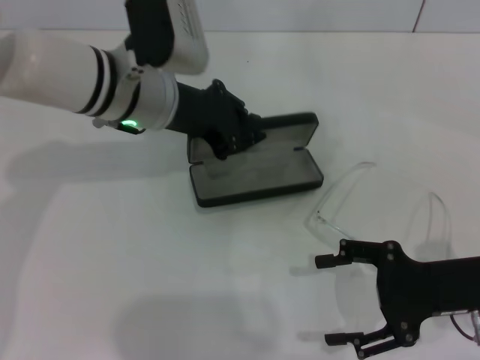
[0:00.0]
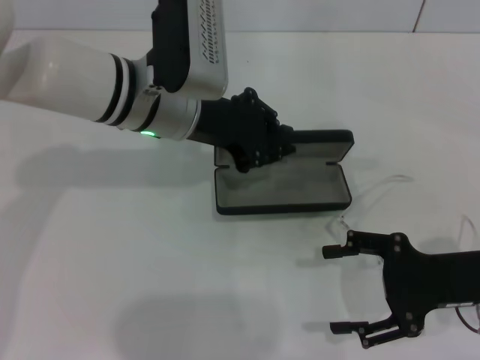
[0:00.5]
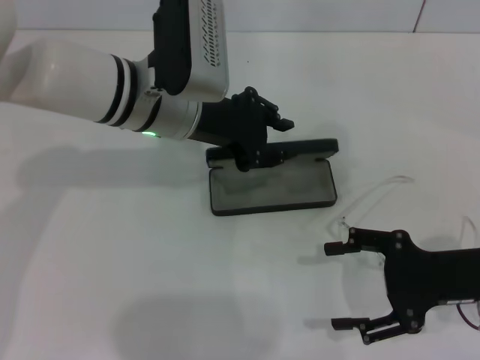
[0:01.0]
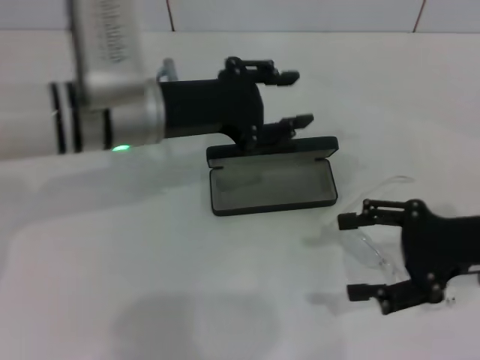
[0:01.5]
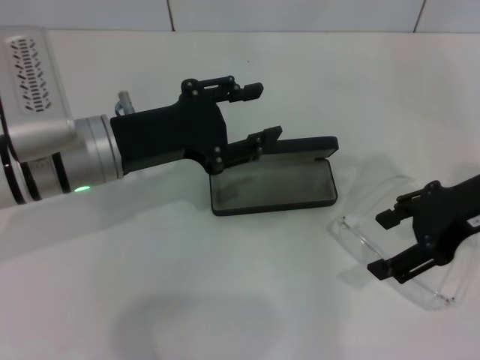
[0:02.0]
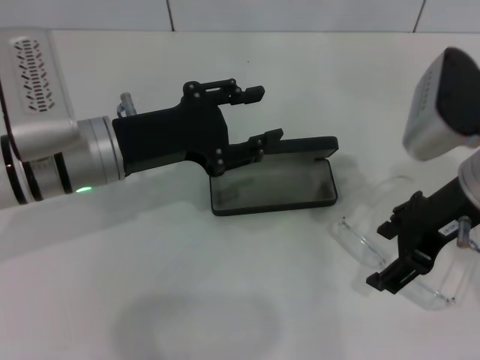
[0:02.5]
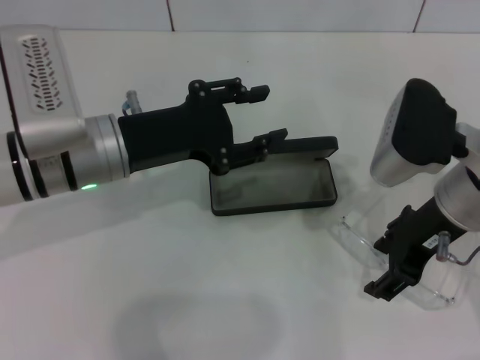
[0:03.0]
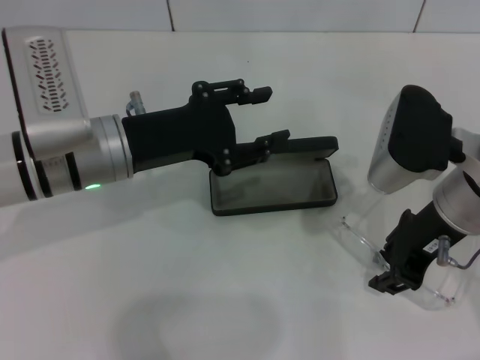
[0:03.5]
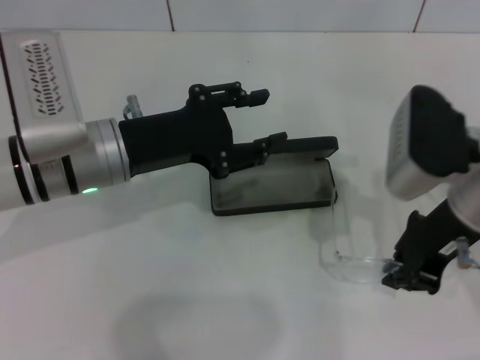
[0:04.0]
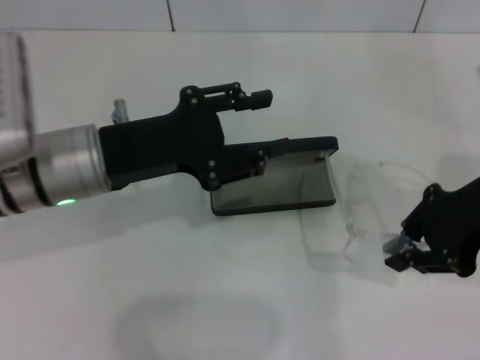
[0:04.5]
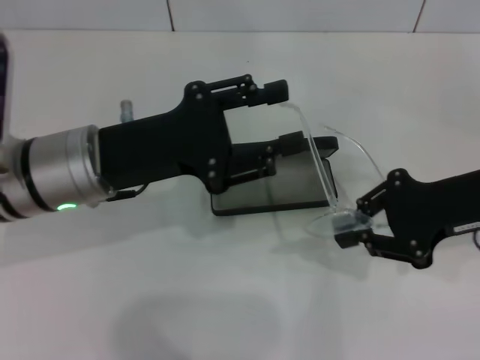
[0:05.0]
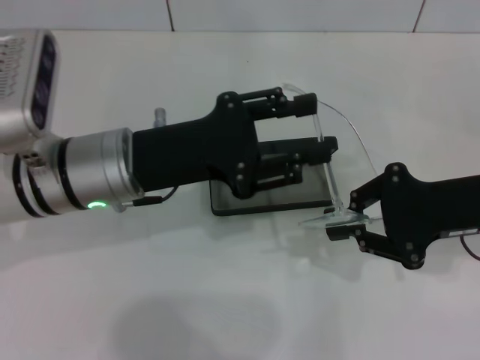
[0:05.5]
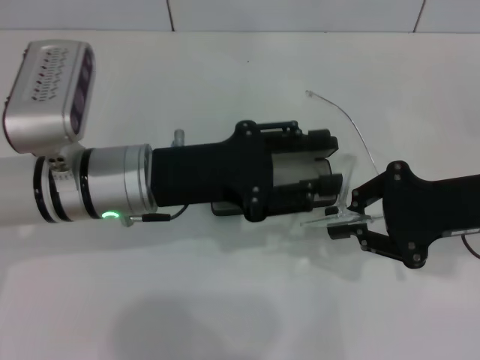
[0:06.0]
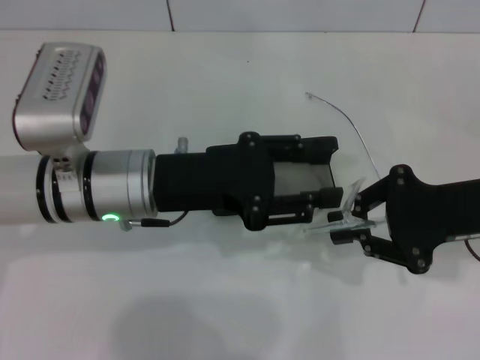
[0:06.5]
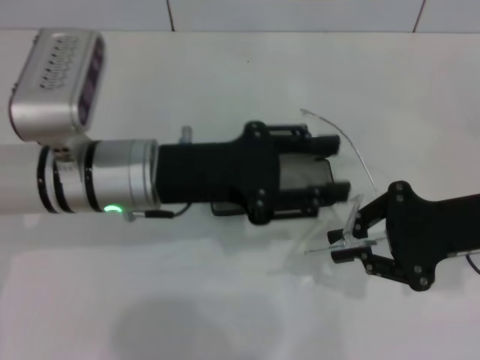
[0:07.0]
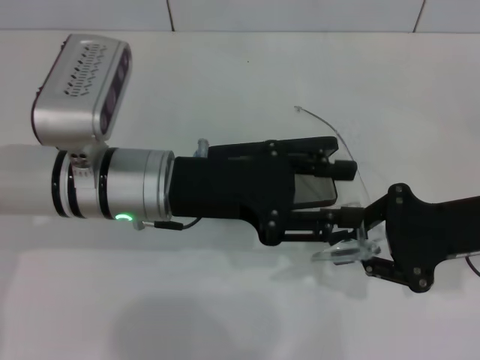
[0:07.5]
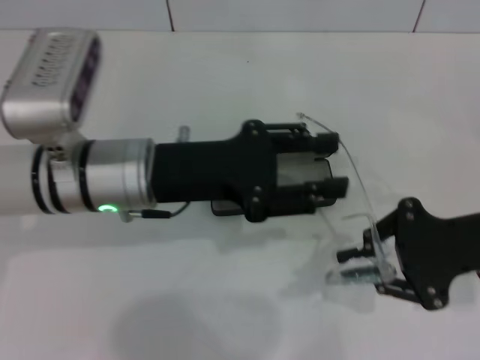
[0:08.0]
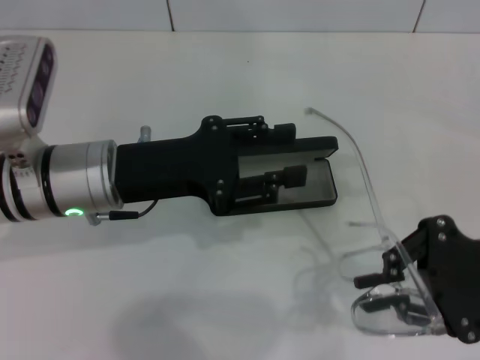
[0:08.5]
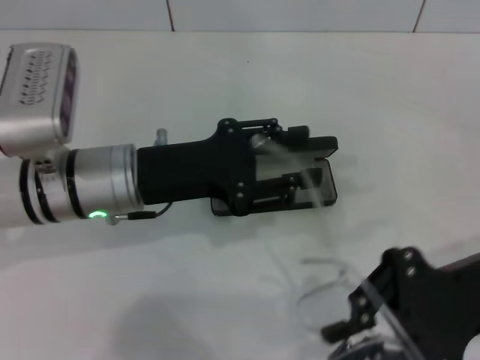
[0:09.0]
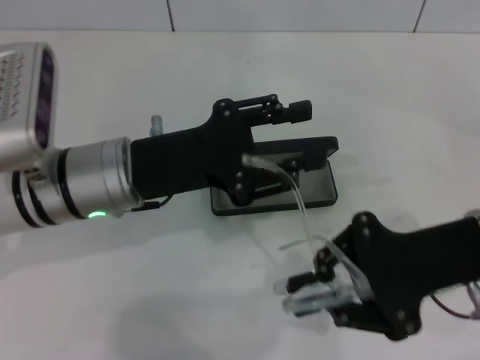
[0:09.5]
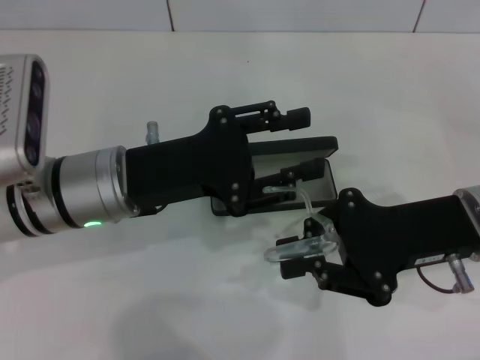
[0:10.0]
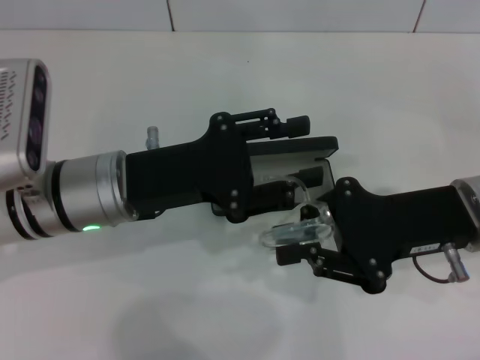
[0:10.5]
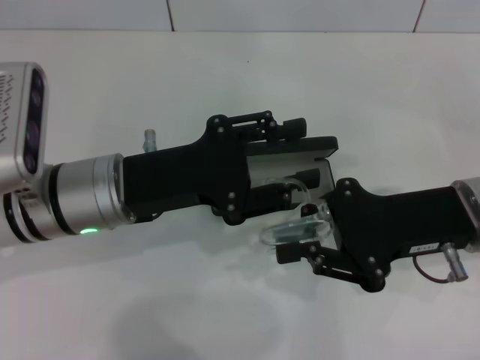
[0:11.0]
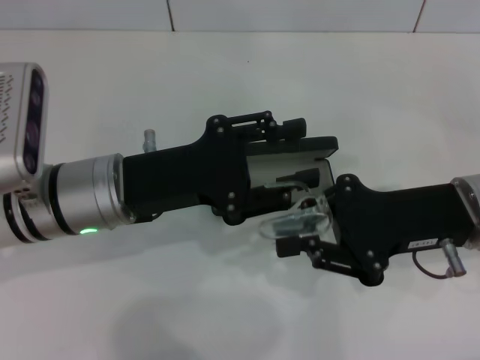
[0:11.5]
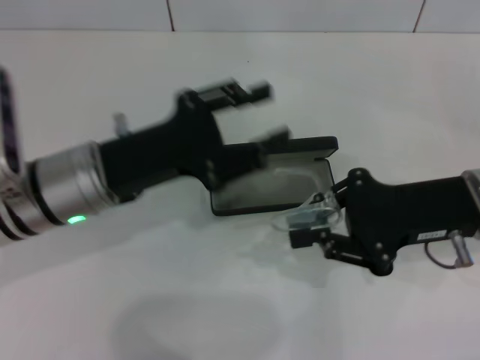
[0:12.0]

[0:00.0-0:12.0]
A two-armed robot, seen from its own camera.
Step, 0:01.5 to 0:03.5: Grab the eyeglass frame with your right hand.
Step, 0:04.0 to 0:11.5: Lift the glasses with your right hand.
0:00.0 to 0:02.0: The right gripper goes some 10 cm upward and forward. Meanwhile the left gripper is displaced backward and to the left by approximately 10 cm, and opens its fingers.
0:02.0 to 0:04.0: The right gripper shifts about 5 cm to the left, and closes up.
0:04.0 to 0:06.0: The right gripper is displaced to the right by roughly 5 cm.
0:06.0 to 0:08.0: There are only small adjustments of the grippers.
0:08.0 to 0:10.0: The right gripper shifts roughly 5 cm to the left.

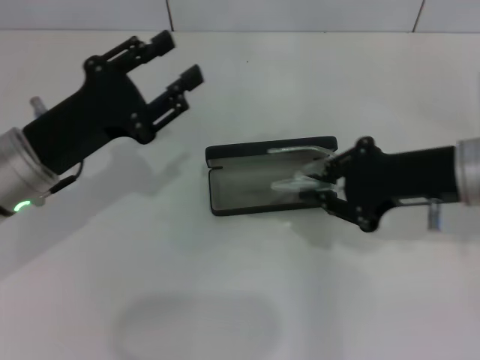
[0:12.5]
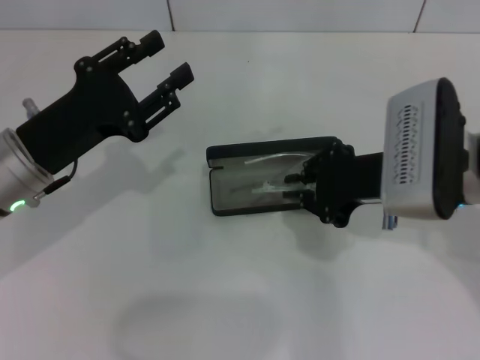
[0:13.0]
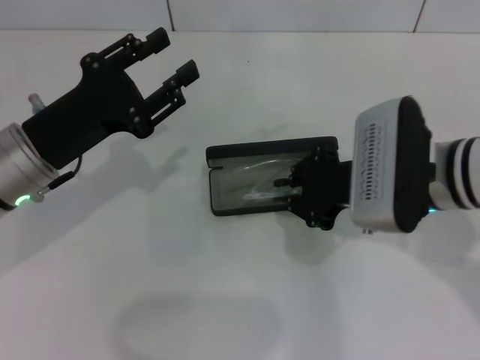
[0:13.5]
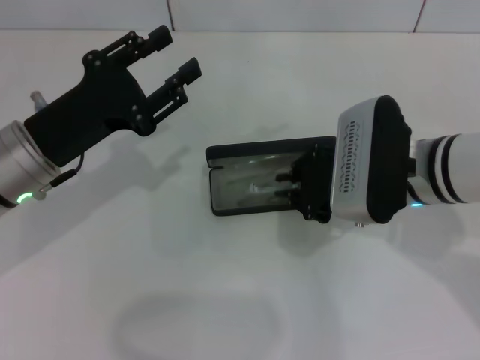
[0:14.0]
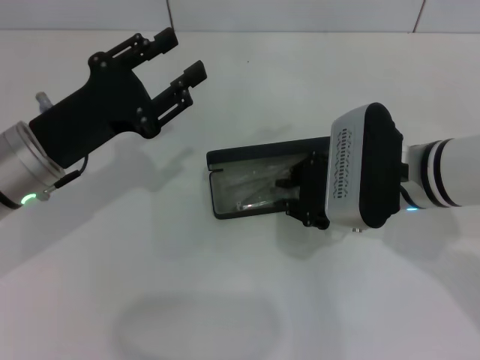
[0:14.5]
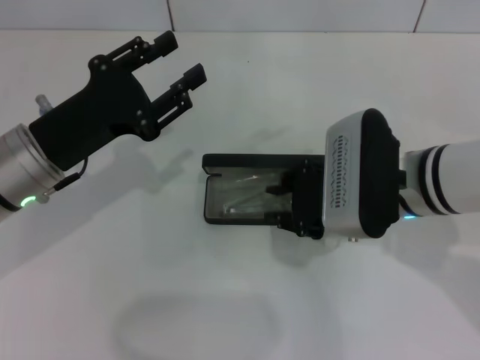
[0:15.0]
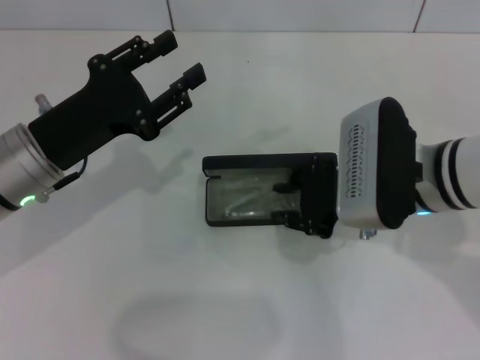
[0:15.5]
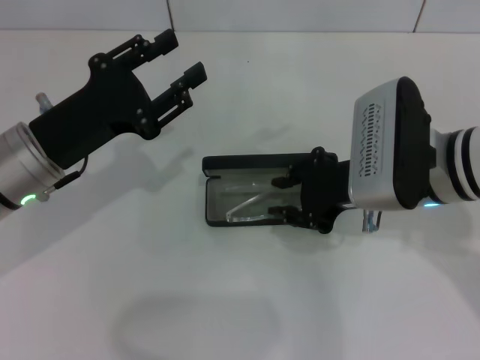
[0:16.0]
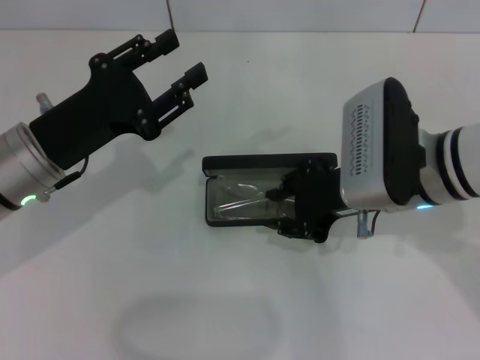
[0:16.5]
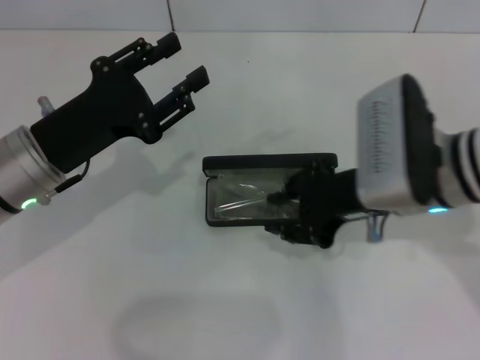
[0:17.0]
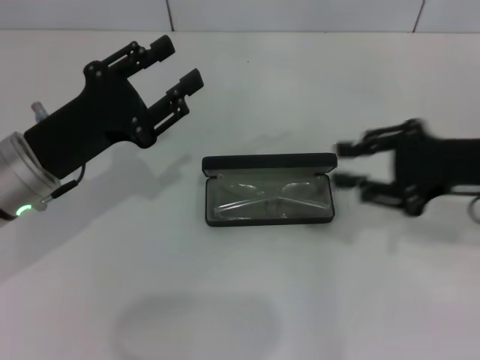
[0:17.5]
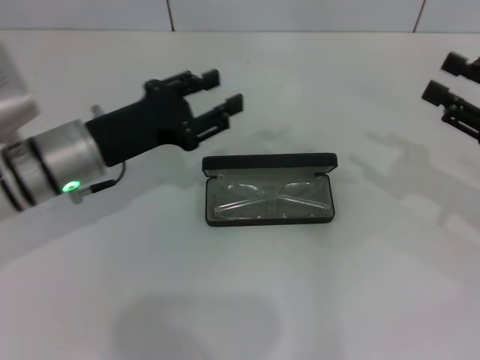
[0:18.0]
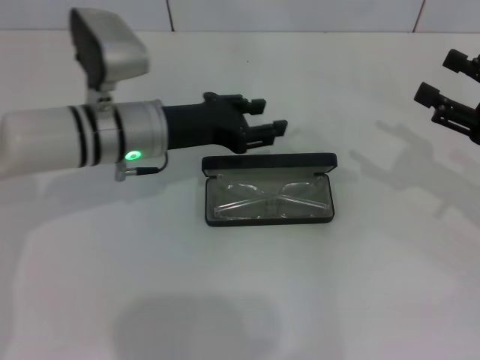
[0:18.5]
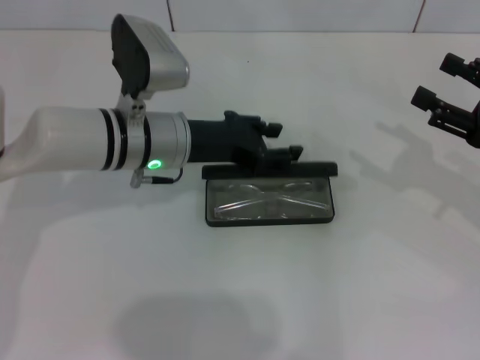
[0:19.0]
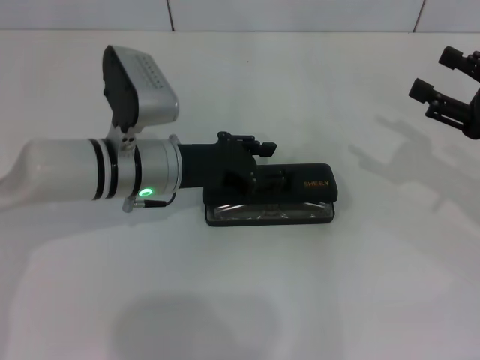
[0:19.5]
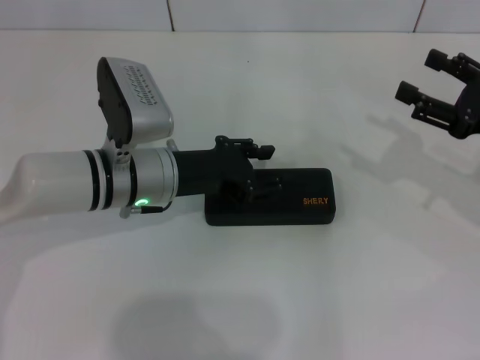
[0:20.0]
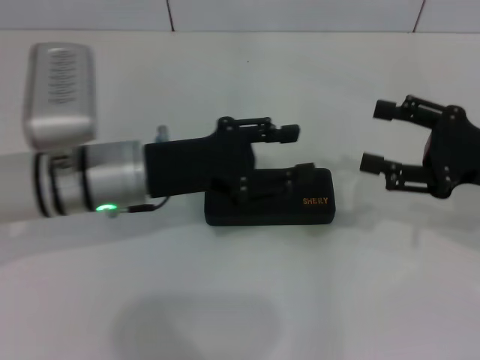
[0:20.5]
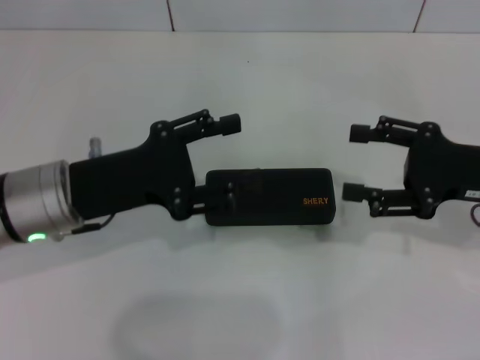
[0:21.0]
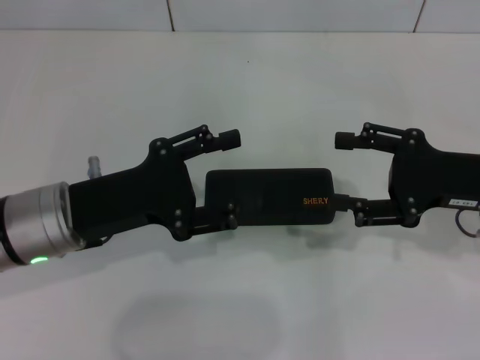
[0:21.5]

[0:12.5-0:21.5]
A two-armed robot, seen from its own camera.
Step, 0:12.5 to 0:16.5: Put the glasses into the case with your right hand.
Step, 0:17.0 to 0:19.5: Close the glasses case with your left hand.
0:12.5 to 0:14.5: The right gripper moves to the left, approximately 5 cm.
0:14.5 to 0:17.0: The grippers stay close to where they were, moving slightly.
0:17.0 to 0:19.5: The left gripper is displaced to the right and forward by roughly 10 cm. The right gripper shifts roughly 20 cm to the right, and opens up.
0:19.5 to 0:21.5: The right gripper moves to the left, roughly 5 cm; the left gripper heads backward and to the left, covering about 10 cm.

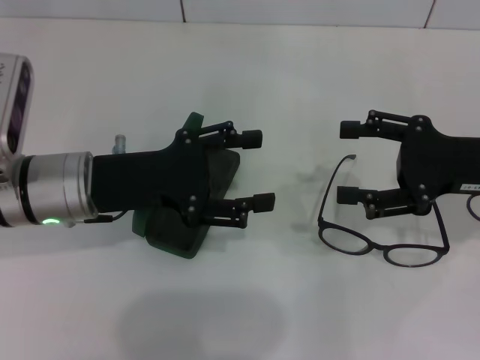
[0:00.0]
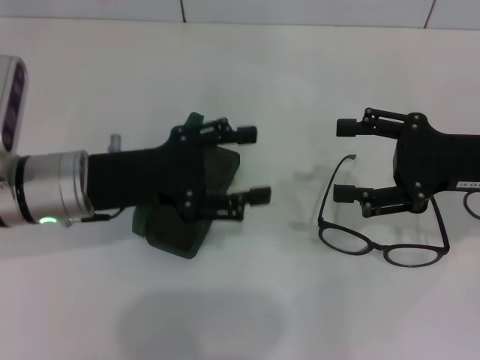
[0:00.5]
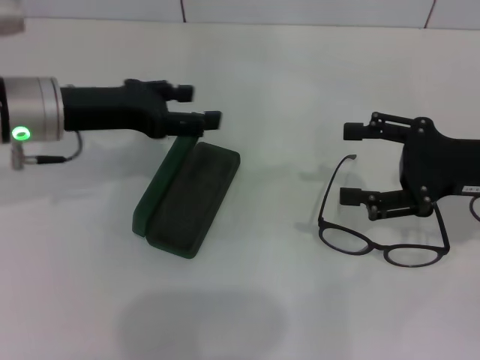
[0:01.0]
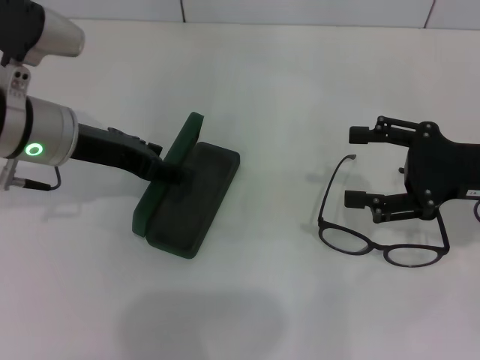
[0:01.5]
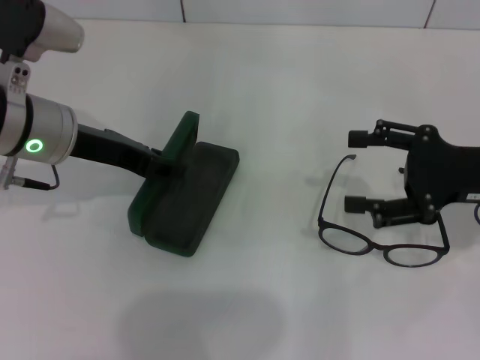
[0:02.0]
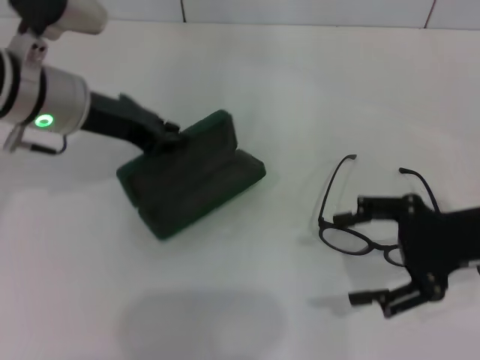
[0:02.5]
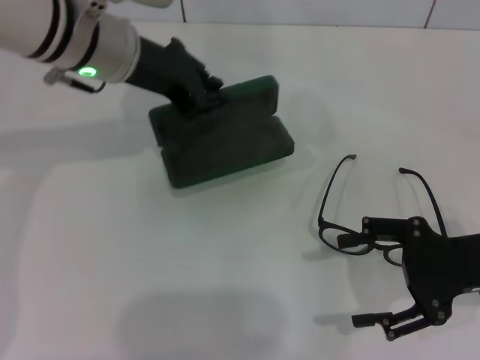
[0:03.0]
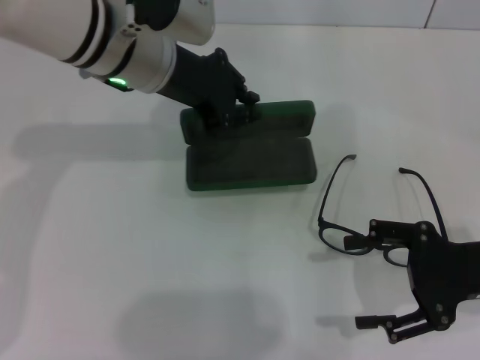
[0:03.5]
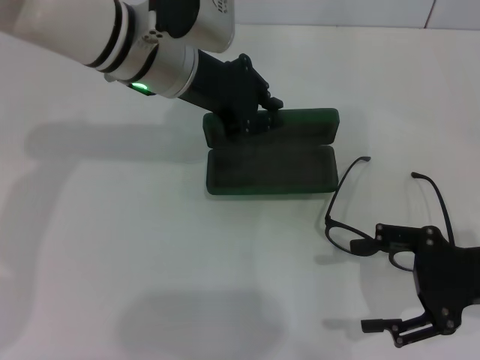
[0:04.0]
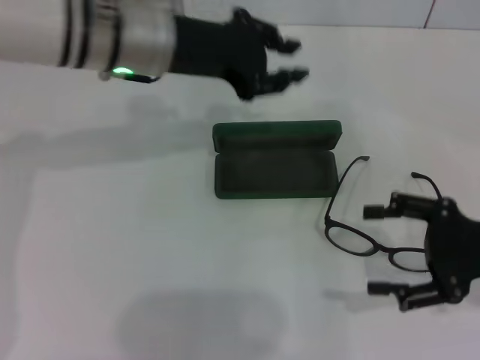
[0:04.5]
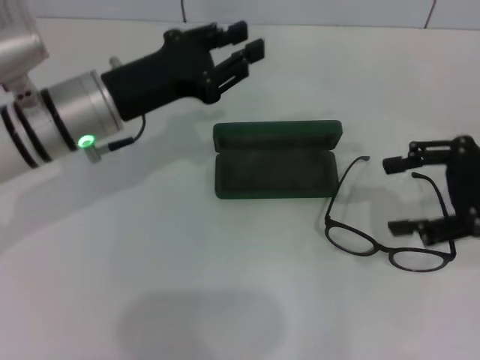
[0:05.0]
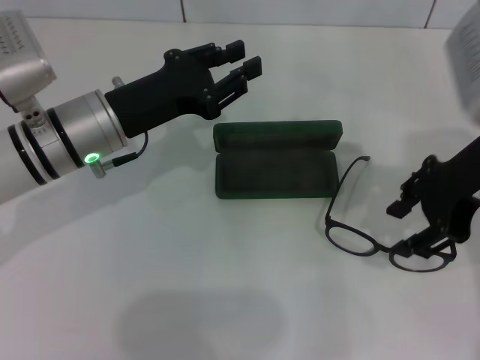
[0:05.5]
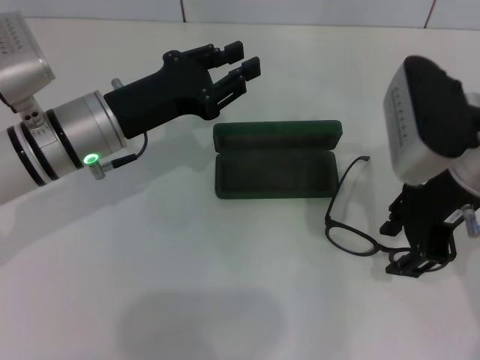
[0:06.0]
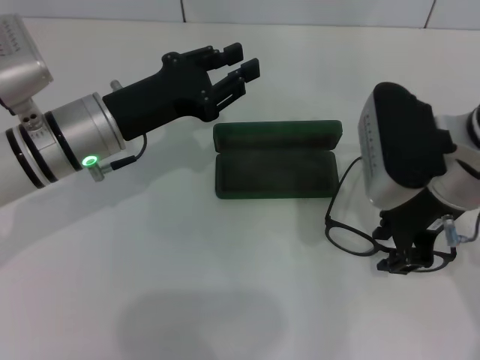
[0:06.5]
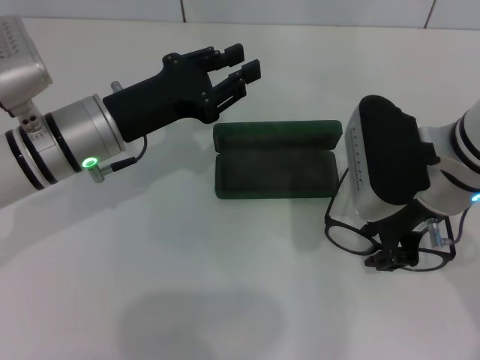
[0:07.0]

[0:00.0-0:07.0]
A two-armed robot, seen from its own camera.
Step, 0:00.0 to 0:02.0: Grab the glasses case with your left hand.
Step, 0:02.5 to 0:04.5: Place the glasses case in the center of the table with your left hand.
0:00.0 to 0:02.0: The left gripper shifts by about 5 cm.
0:02.0 to 0:03.5: The right gripper is displaced backward by roughly 5 cm. Meanwhile the left gripper moves to the right, approximately 10 cm, and closes its fingers.
0:03.5 to 0:05.0: The right gripper travels upward by approximately 10 cm; the left gripper travels downward and to the left by about 10 cm.
0:05.0 to 0:07.0: The right gripper shifts about 15 cm to the left, and closes.
